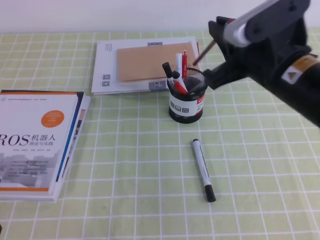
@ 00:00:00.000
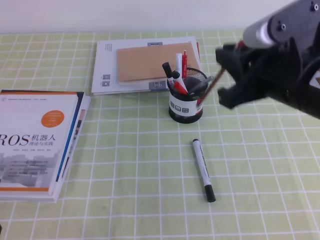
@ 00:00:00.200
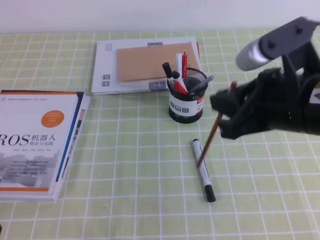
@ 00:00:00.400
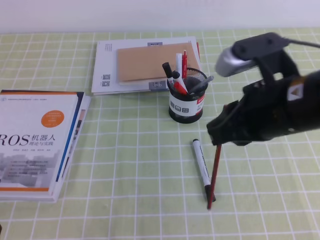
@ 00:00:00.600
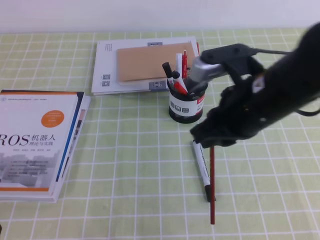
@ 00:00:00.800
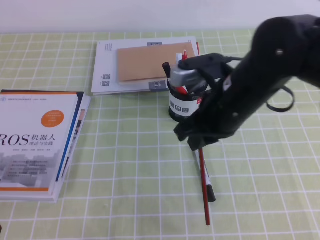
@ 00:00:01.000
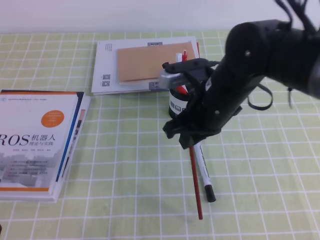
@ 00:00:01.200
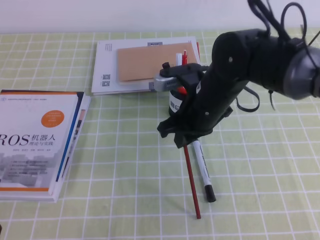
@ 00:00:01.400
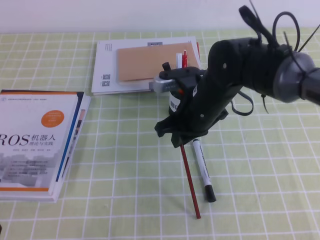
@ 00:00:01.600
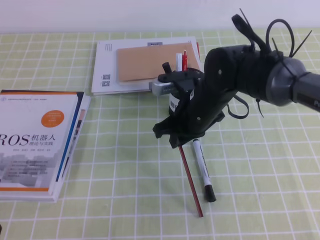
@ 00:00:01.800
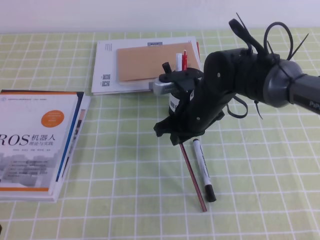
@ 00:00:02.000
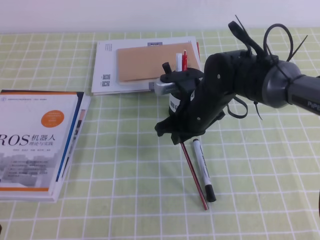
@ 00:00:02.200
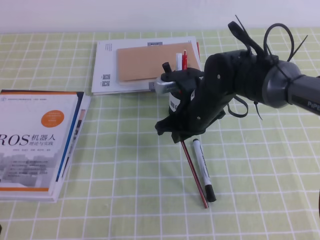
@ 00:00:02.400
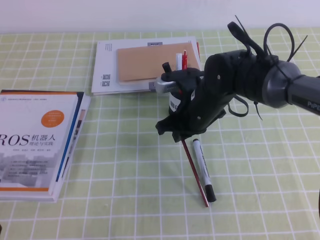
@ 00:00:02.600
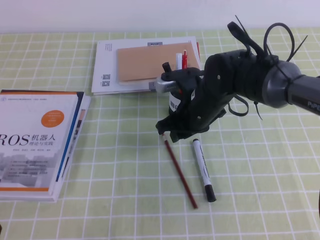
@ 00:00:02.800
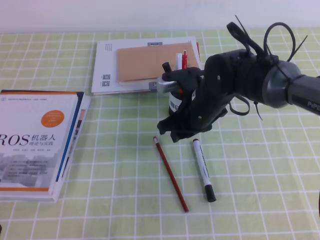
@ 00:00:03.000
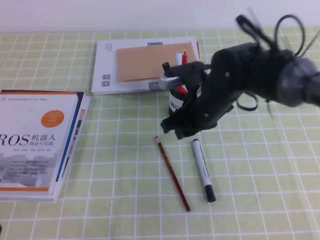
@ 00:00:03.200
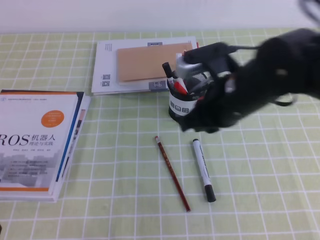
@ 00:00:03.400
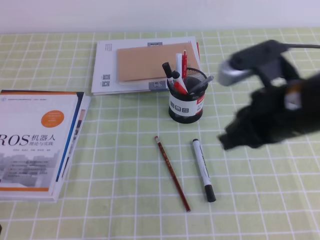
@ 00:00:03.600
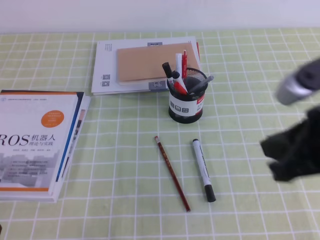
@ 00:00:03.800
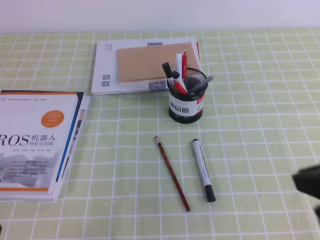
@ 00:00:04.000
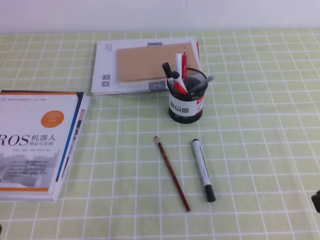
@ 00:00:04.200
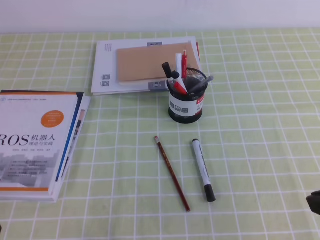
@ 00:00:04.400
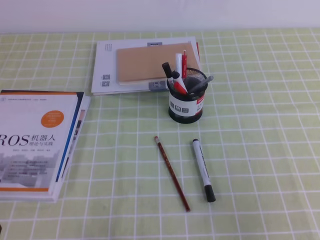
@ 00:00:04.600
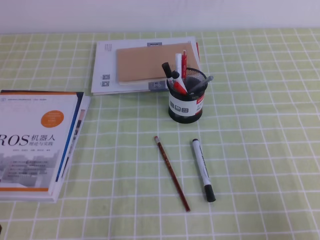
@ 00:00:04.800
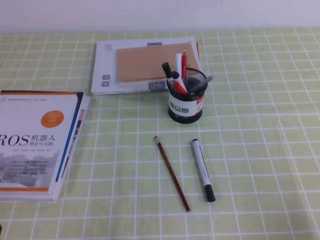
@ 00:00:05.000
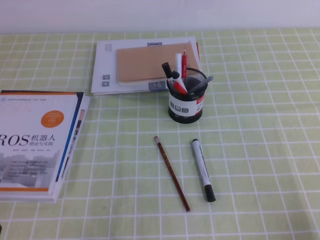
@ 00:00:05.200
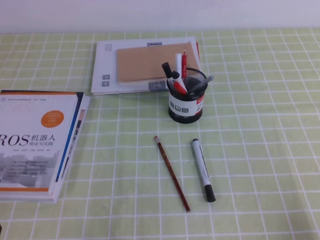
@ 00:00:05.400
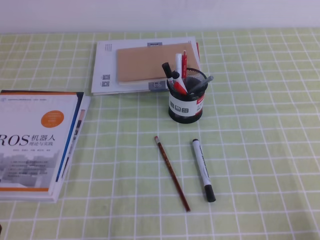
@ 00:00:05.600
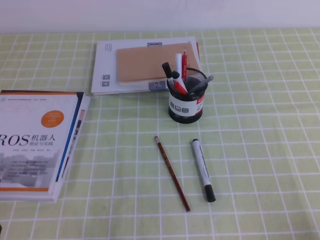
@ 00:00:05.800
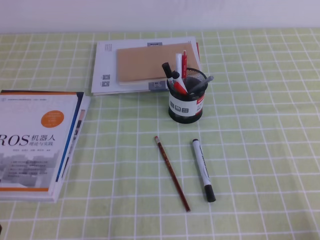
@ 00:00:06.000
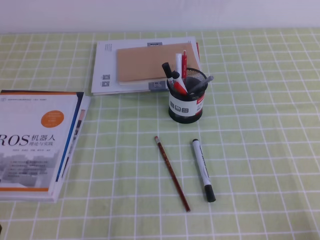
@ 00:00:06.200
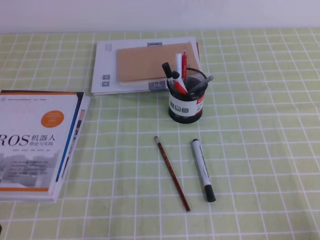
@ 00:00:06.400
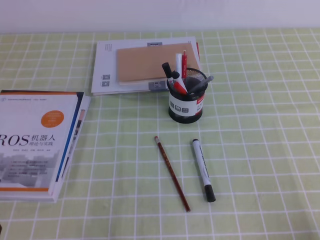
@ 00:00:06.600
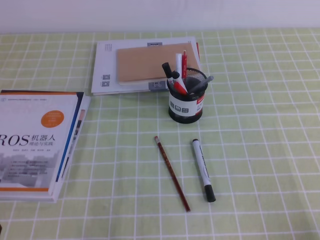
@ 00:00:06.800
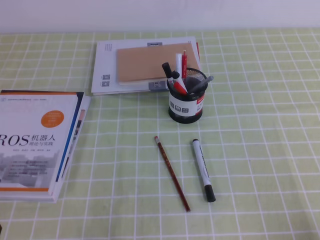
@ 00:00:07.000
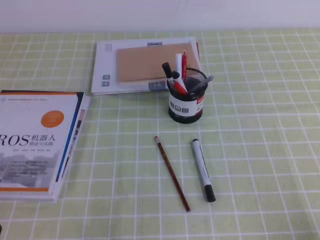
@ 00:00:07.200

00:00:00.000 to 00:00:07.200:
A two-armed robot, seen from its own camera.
Step, 00:00:00.000 to 00:00:07.200: Pick up the pen from the pen holder.
00:00:00.000 to 00:00:01.400: The right gripper is displaced downward, to the left and forward by about 10 cm.
00:00:01.400 to 00:00:02.800: The right gripper shifts by some 5 cm.
00:00:02.800 to 00:00:04.400: The right gripper travels backward and to the right by roughly 30 cm.
00:00:04.400 to 00:00:05.800: The right gripper heads downward and to the right, covering some 15 cm.
00:00:05.800 to 00:00:07.200: Both grippers stay about where they are.
